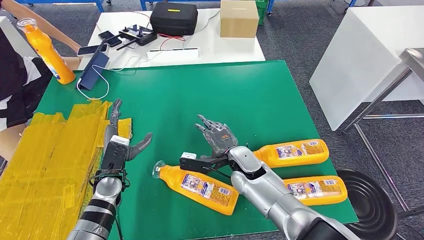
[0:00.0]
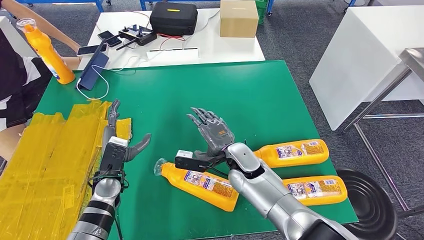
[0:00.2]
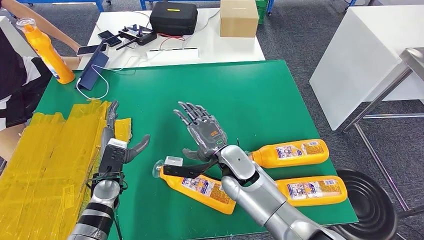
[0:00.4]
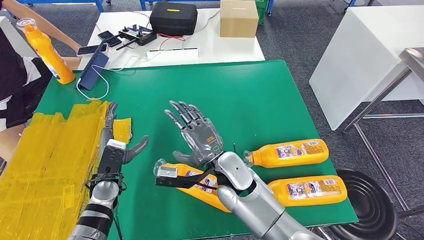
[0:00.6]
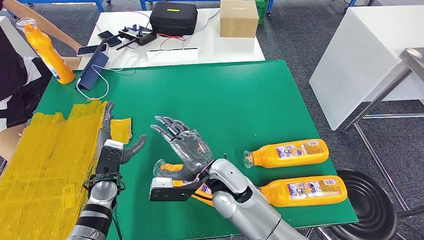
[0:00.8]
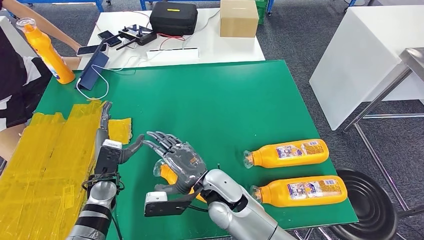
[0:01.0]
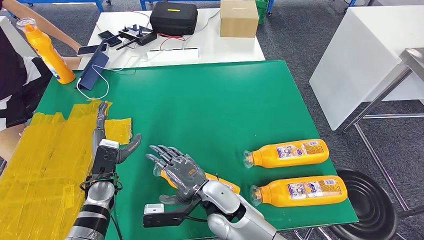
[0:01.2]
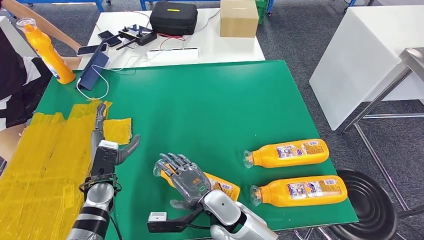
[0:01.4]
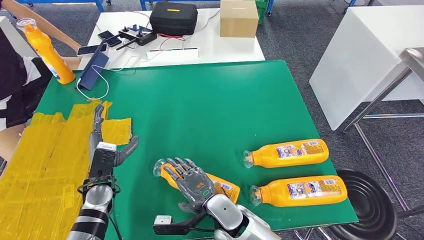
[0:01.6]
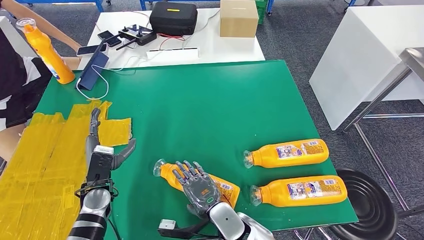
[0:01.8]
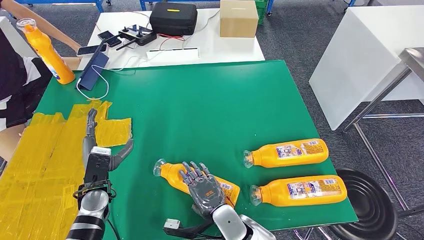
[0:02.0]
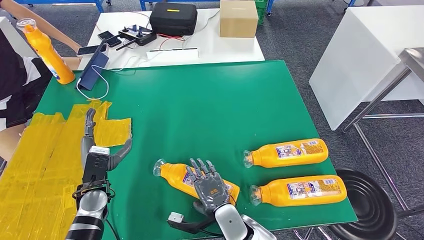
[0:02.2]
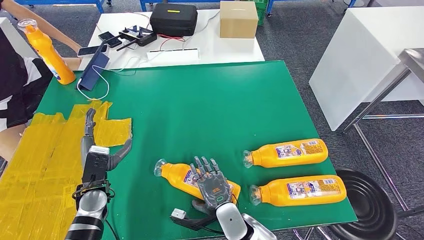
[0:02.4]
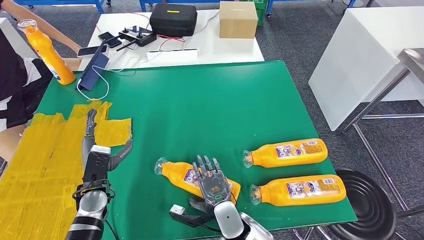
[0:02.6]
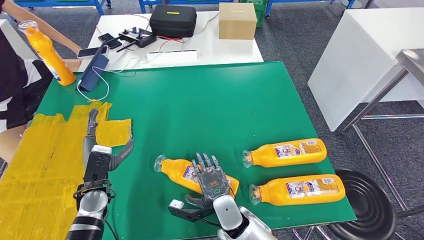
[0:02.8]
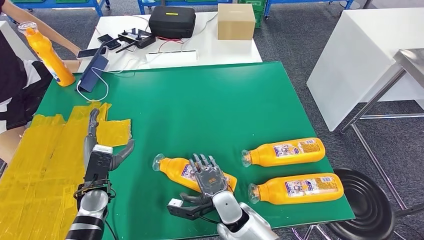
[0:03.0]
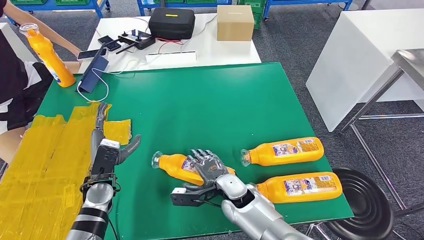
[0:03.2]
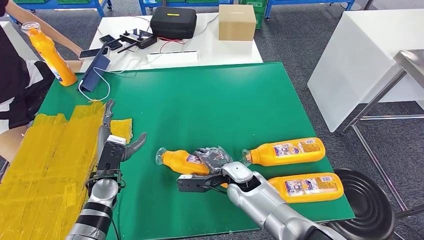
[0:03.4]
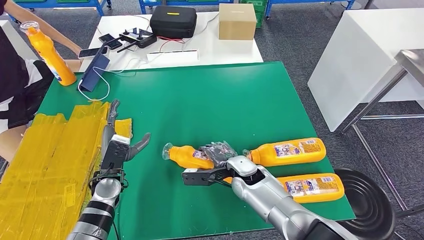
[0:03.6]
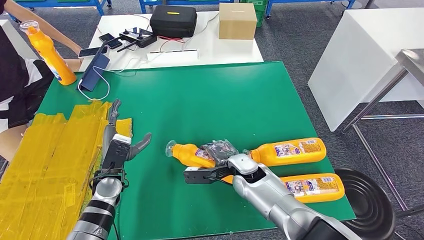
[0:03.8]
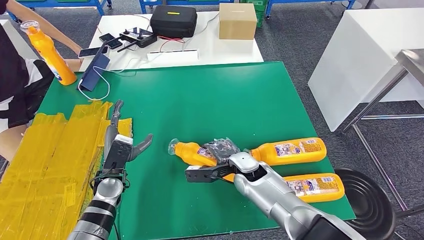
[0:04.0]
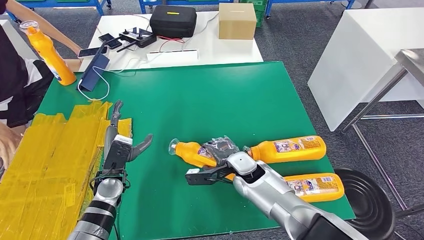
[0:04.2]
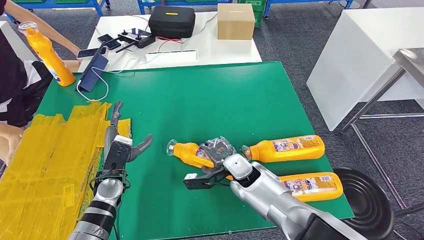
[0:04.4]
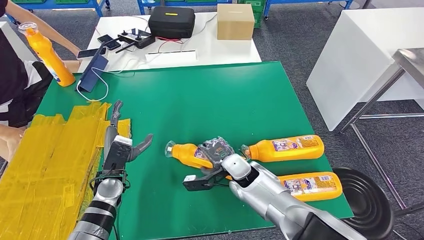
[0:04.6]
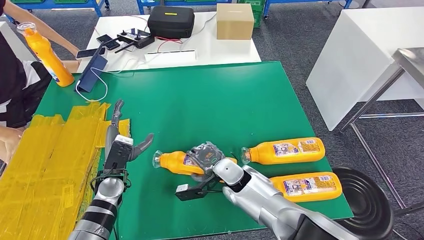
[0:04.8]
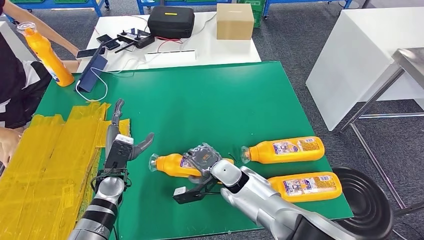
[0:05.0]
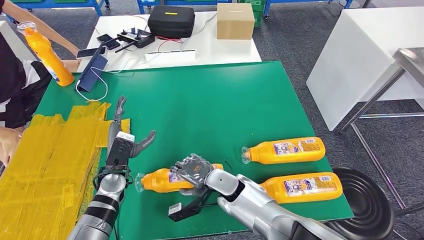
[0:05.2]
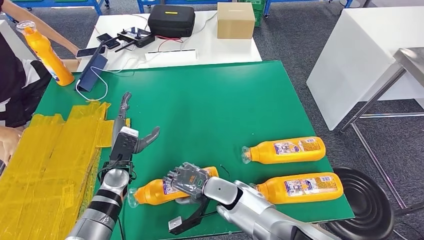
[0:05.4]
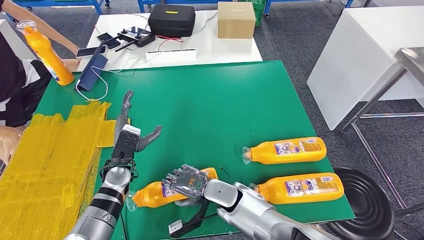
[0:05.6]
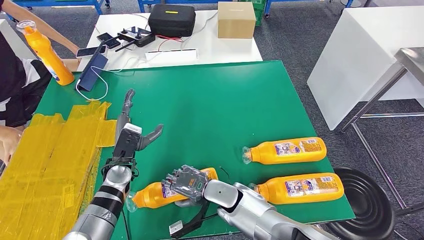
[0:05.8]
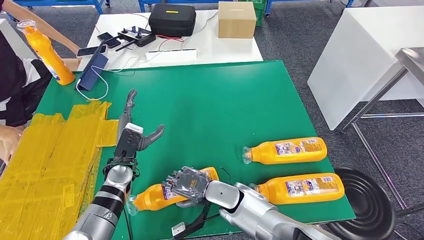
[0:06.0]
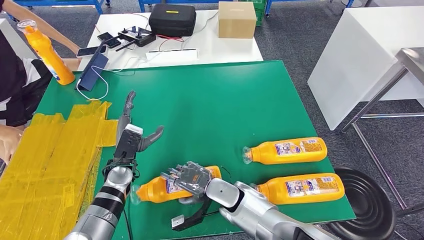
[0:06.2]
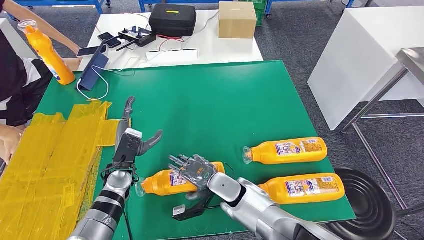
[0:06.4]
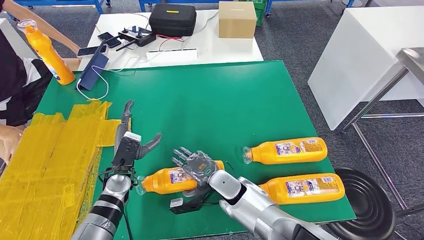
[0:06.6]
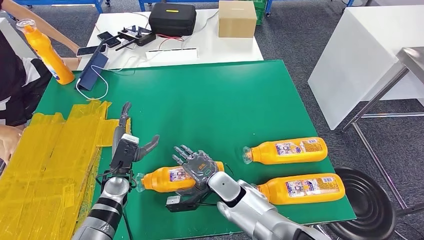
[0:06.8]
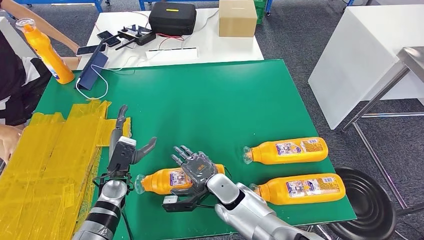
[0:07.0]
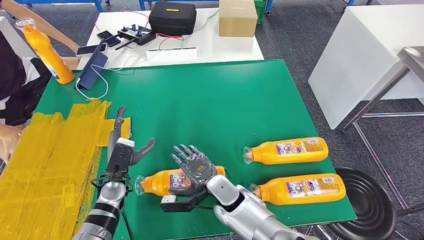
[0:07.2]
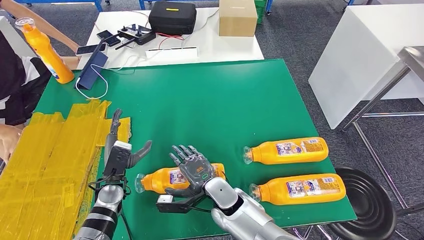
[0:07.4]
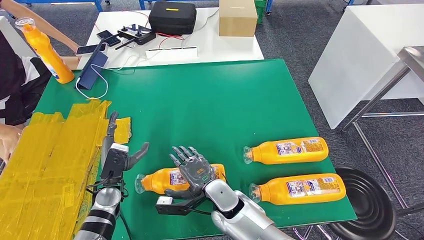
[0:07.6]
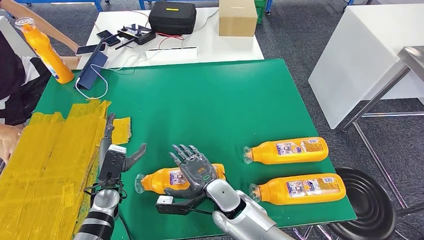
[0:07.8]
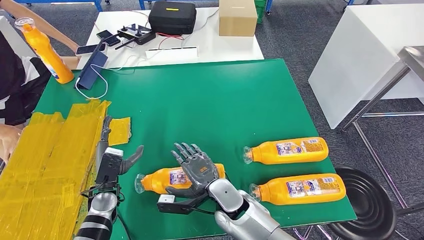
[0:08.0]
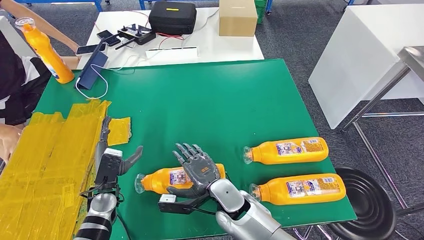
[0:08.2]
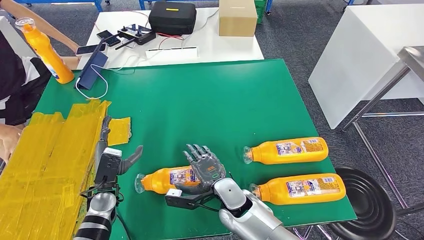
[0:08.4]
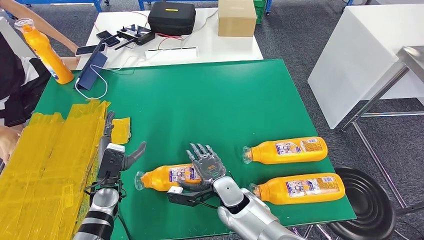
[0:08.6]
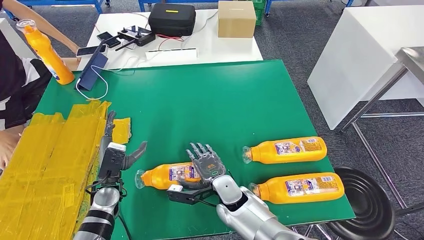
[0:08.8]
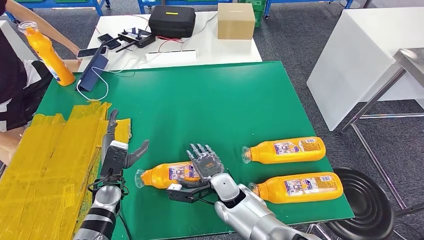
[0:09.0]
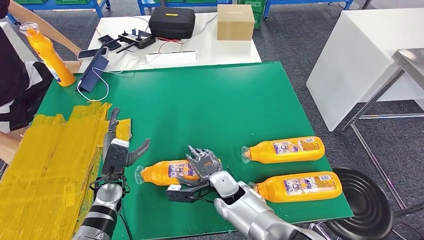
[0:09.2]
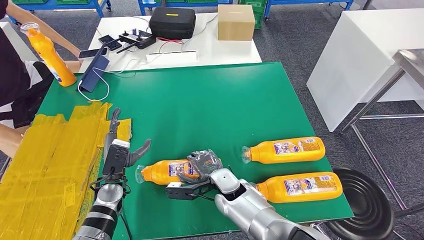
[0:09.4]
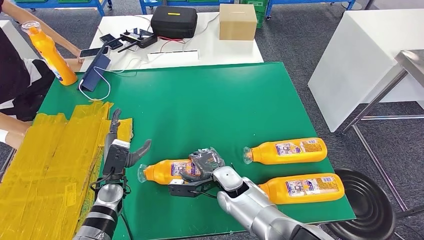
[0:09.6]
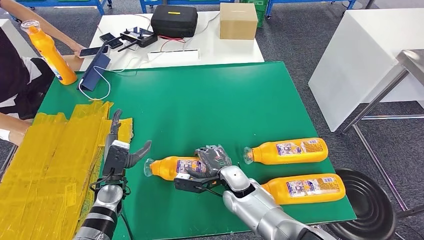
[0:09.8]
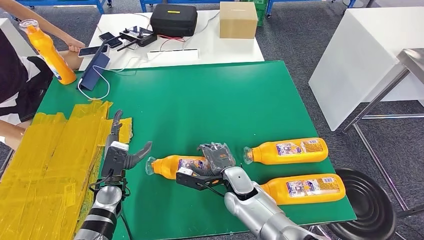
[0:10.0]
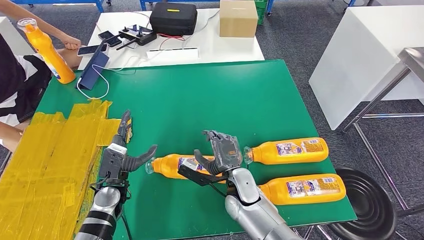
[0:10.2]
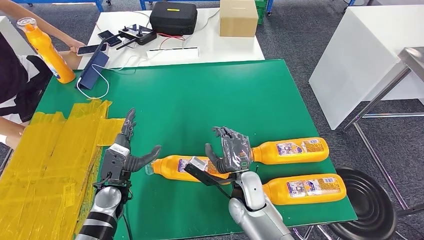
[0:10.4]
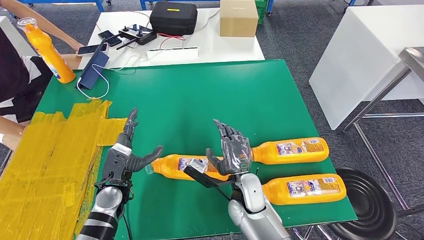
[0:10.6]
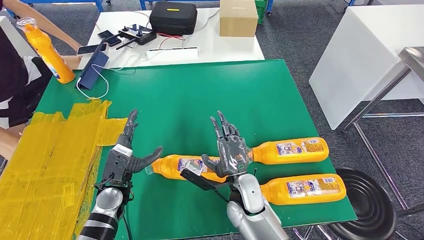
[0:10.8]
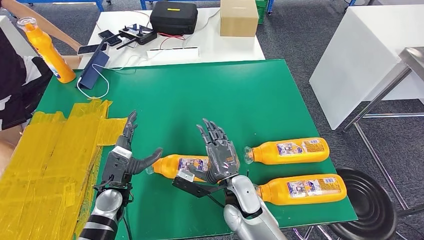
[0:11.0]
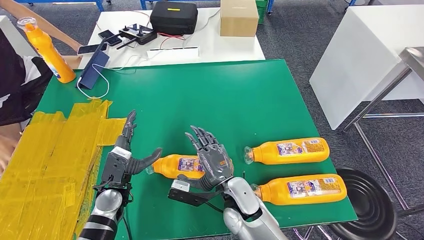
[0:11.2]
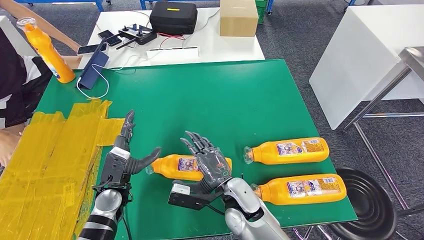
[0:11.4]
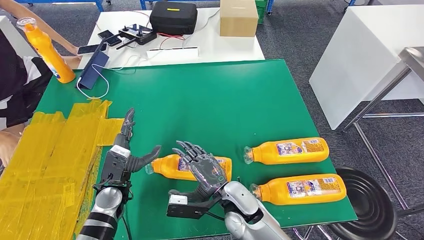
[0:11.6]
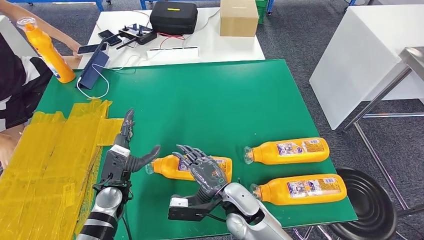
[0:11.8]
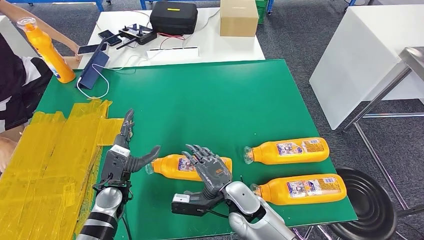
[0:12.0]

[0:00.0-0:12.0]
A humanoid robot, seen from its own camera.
0:00.0 to 0:01.6: The right hand travels backward and to the left by roughly 15 cm.
0:03.0 to 0:04.4: The right hand goes about 10 cm forward.
0:06.0 to 0:07.6: The left hand moves some 5 cm.
0:07.6 to 0:09.0: There are only small adjustments of the hands.

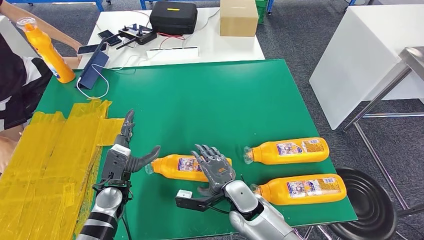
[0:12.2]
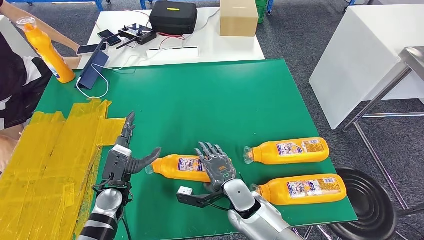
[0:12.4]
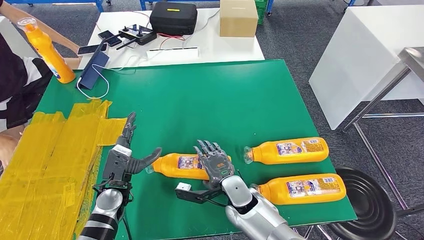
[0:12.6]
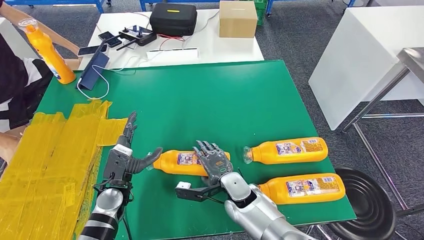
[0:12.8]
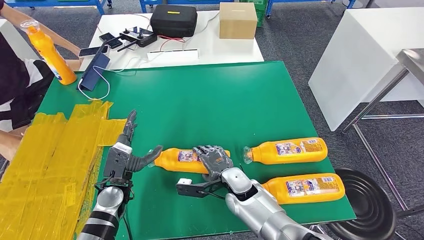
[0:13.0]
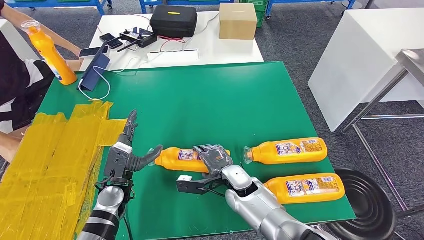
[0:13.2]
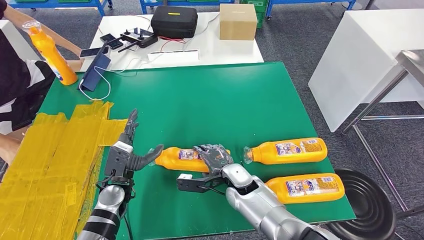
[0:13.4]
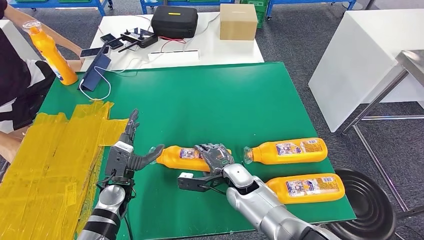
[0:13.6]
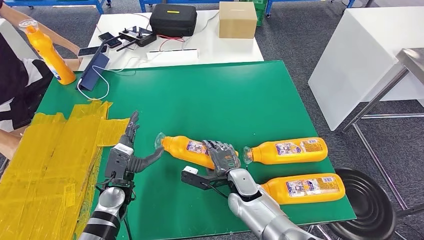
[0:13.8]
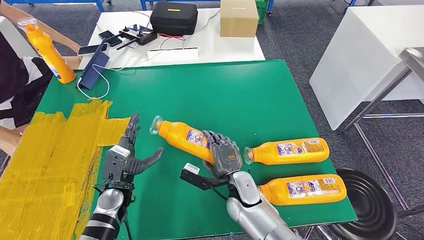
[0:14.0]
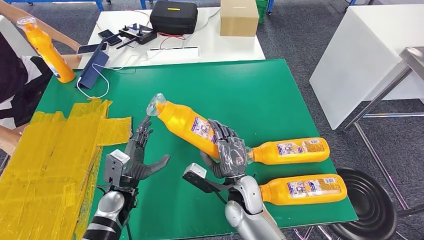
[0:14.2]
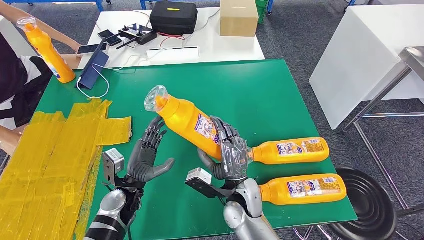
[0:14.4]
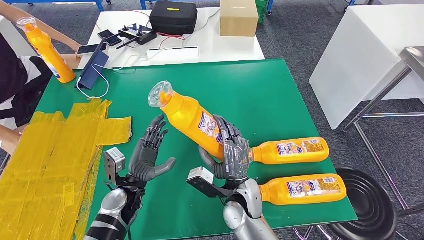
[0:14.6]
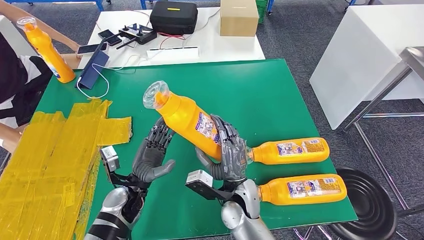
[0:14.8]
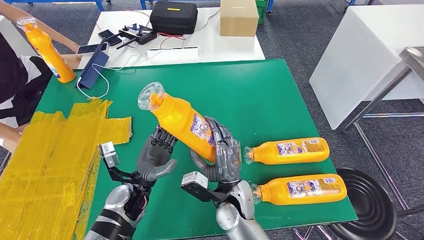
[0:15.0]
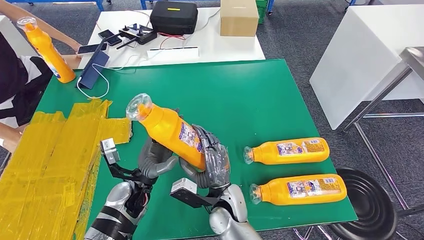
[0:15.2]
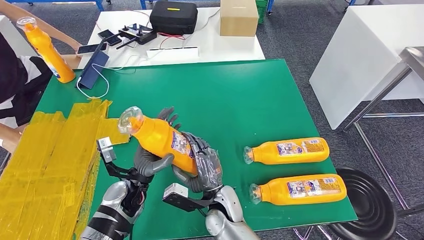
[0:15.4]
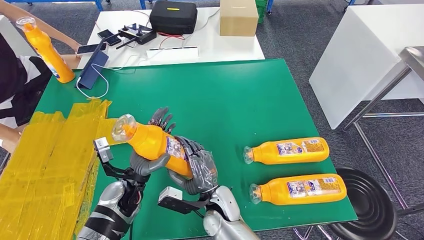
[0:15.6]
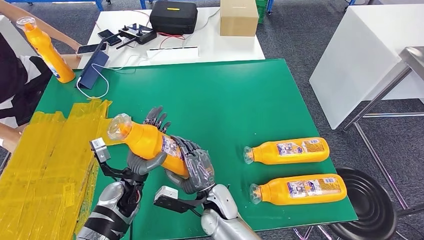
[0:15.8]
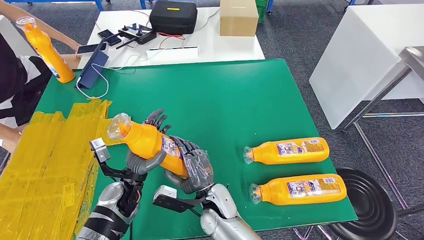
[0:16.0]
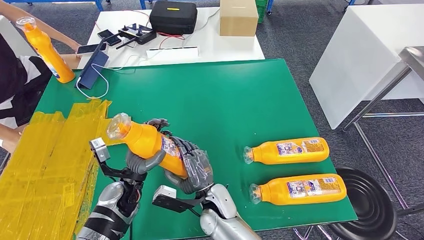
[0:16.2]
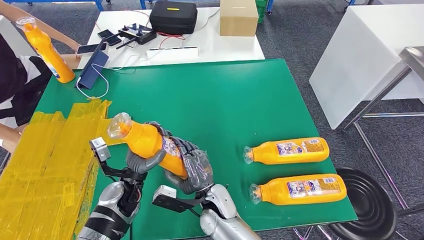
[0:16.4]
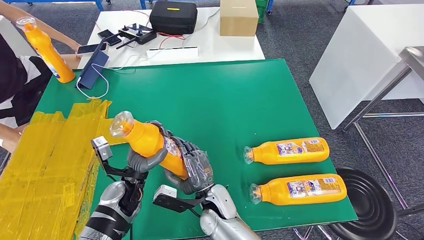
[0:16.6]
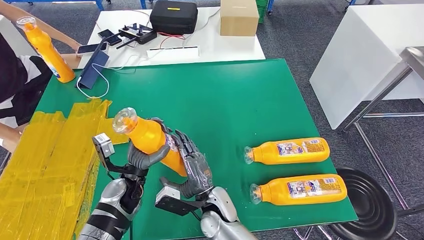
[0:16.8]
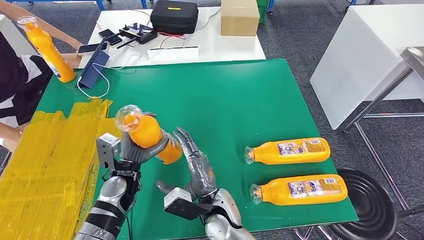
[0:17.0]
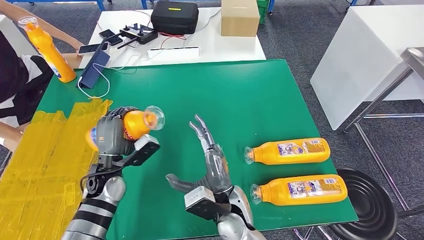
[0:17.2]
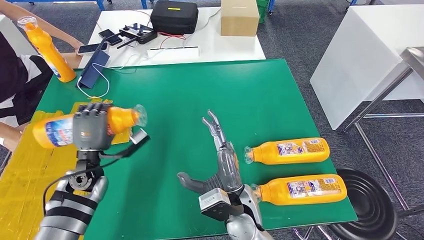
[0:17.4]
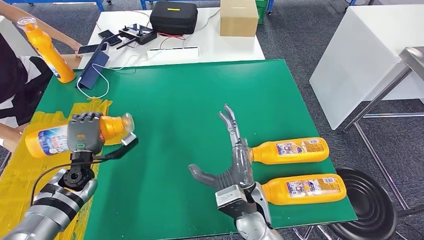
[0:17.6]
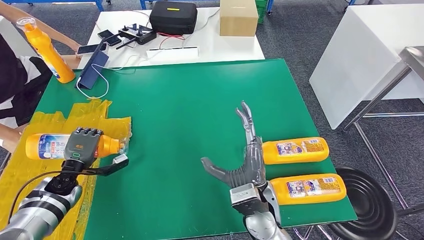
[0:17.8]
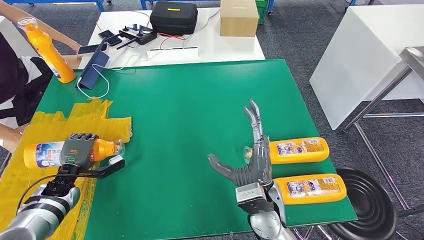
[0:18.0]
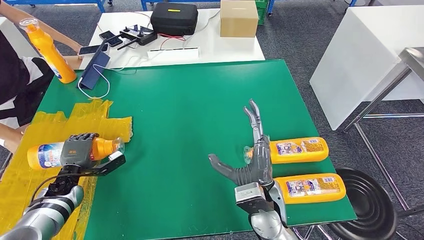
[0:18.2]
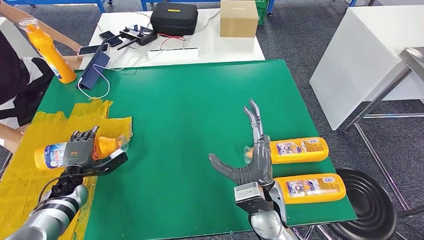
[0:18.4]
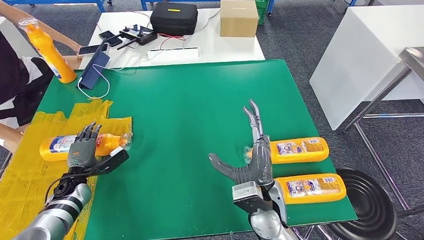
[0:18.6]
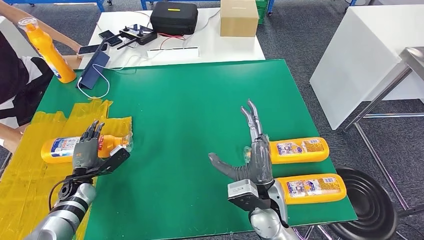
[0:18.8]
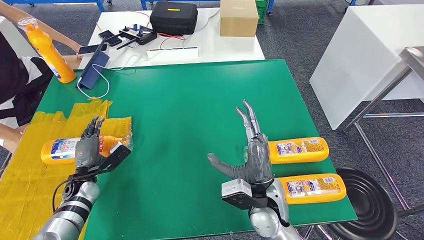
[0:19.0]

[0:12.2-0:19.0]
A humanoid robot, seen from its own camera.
Step, 0:12.2 to 0:16.2: Pick up the fast-moving consumer goods bottle from the table.
0:15.0 to 0:16.2: The right hand goes roughly 5 cm to the left.
0:16.2 to 0:17.6: The left hand is displaced to the left by about 15 cm. The right hand moves upward and to the right, some 10 cm.
0:17.6 to 0:19.0: The left hand shifts roughly 5 cm downward.
